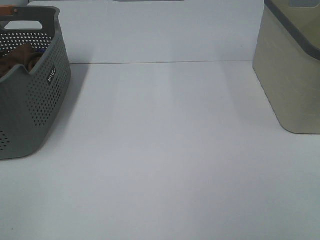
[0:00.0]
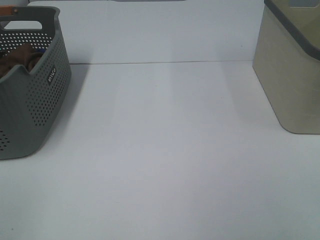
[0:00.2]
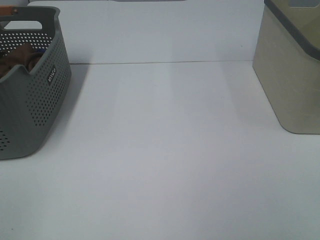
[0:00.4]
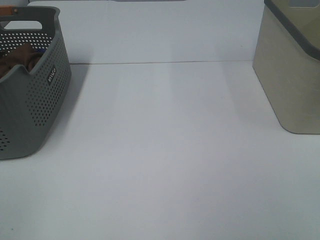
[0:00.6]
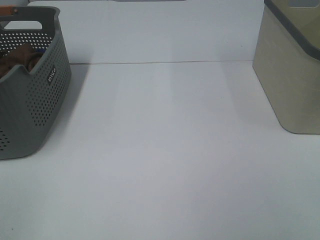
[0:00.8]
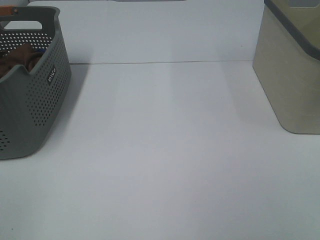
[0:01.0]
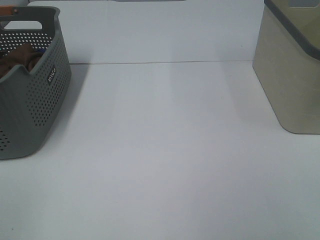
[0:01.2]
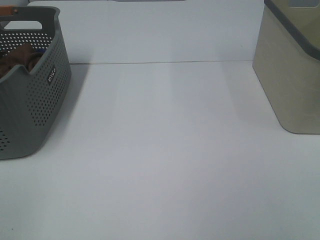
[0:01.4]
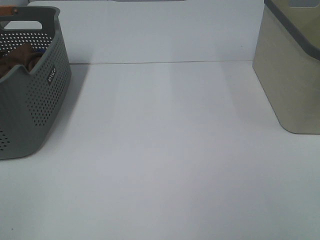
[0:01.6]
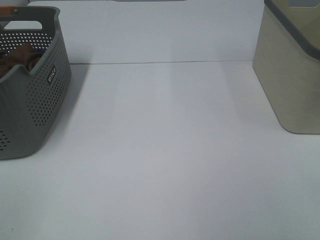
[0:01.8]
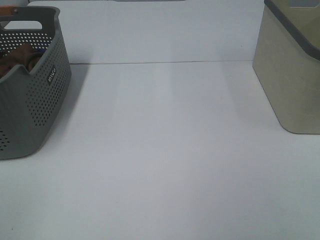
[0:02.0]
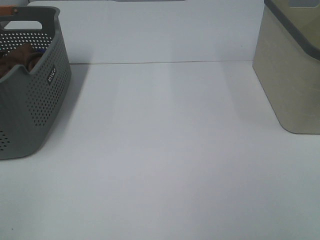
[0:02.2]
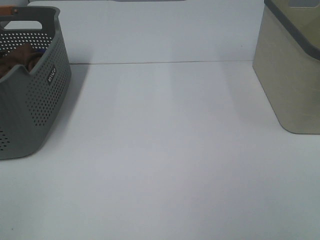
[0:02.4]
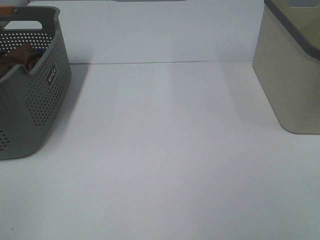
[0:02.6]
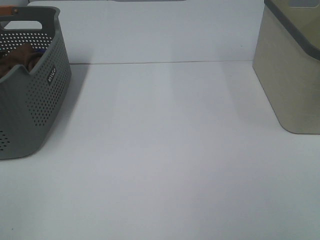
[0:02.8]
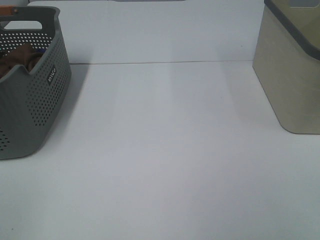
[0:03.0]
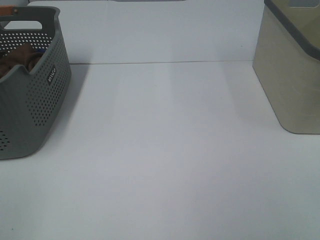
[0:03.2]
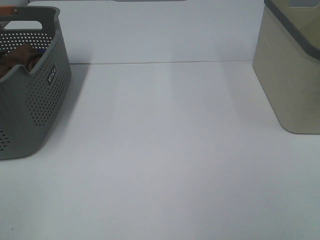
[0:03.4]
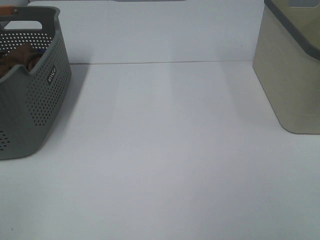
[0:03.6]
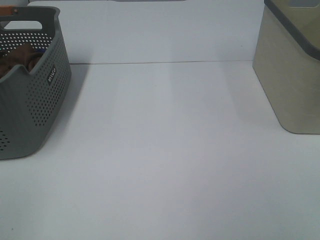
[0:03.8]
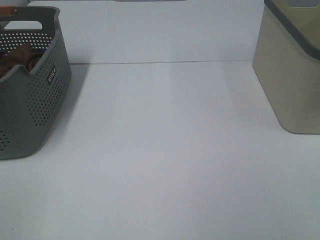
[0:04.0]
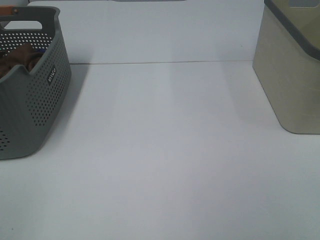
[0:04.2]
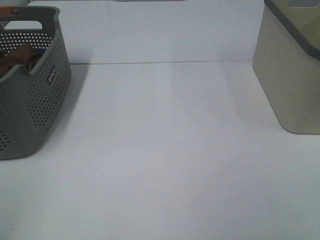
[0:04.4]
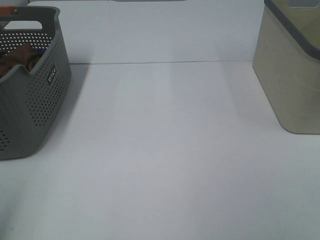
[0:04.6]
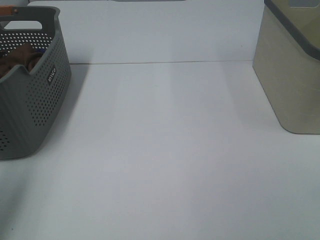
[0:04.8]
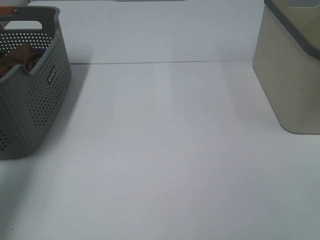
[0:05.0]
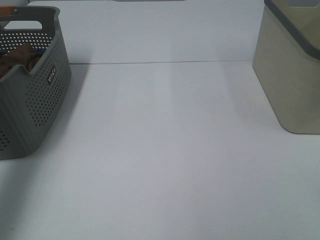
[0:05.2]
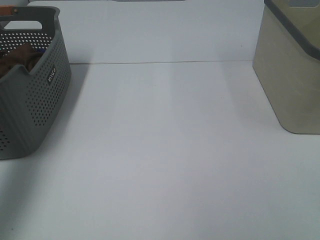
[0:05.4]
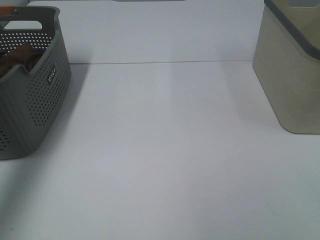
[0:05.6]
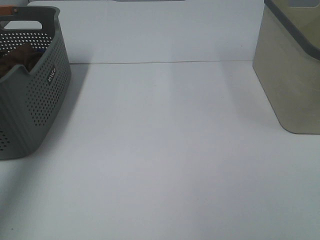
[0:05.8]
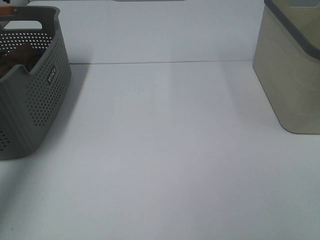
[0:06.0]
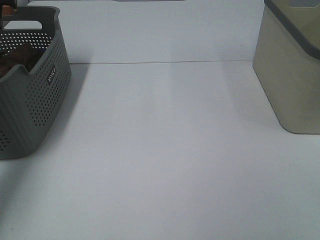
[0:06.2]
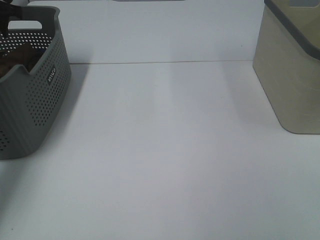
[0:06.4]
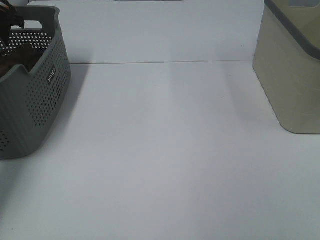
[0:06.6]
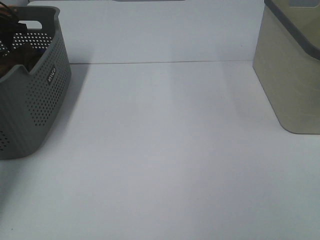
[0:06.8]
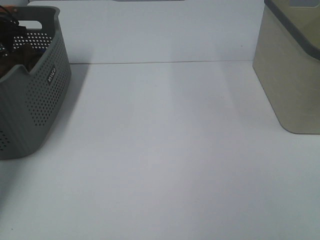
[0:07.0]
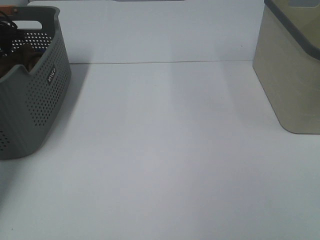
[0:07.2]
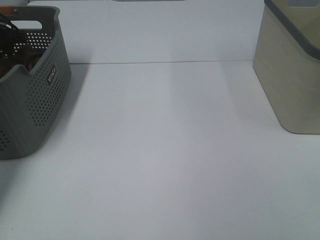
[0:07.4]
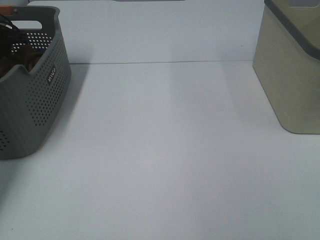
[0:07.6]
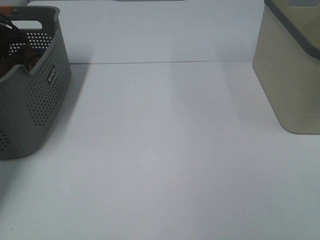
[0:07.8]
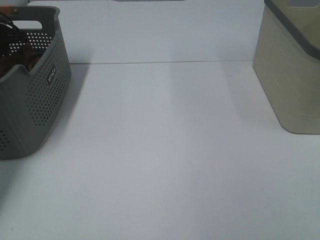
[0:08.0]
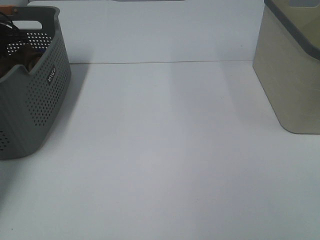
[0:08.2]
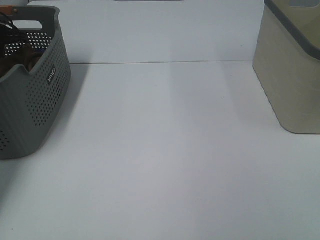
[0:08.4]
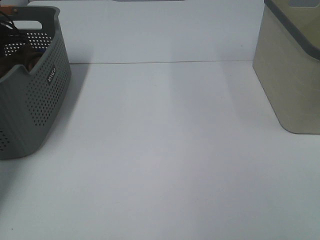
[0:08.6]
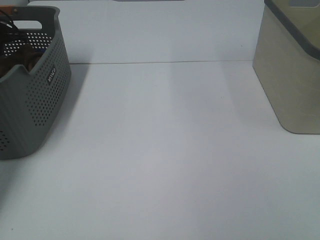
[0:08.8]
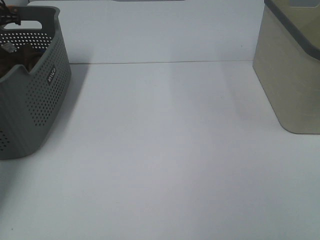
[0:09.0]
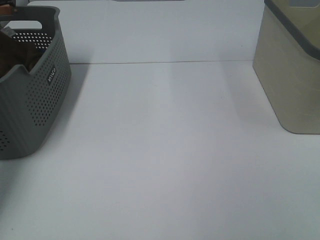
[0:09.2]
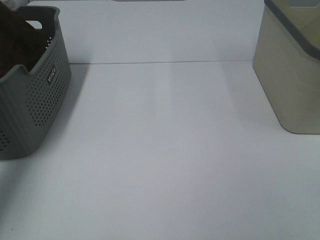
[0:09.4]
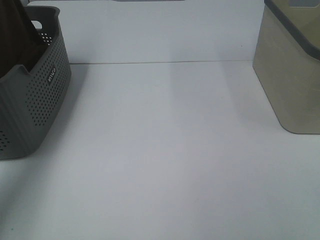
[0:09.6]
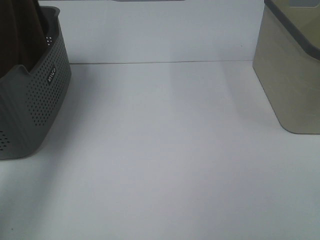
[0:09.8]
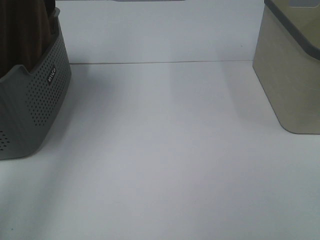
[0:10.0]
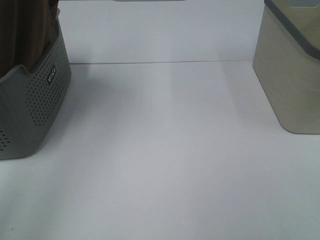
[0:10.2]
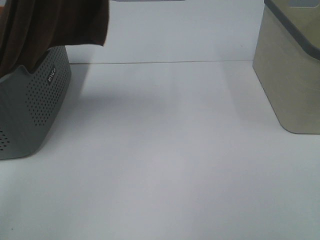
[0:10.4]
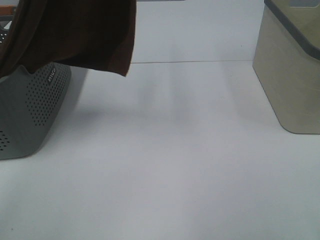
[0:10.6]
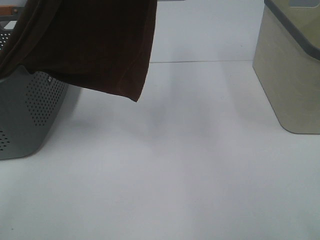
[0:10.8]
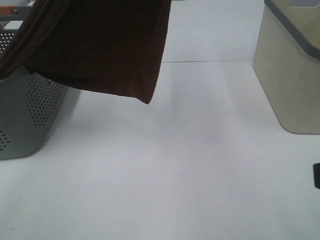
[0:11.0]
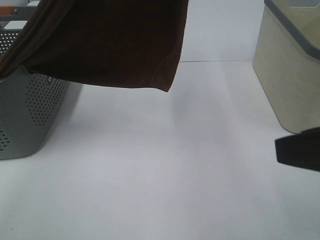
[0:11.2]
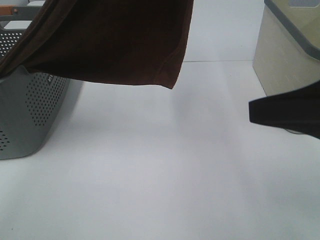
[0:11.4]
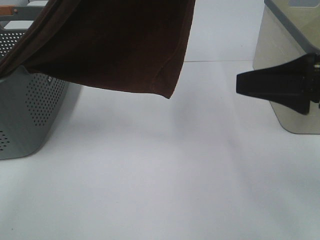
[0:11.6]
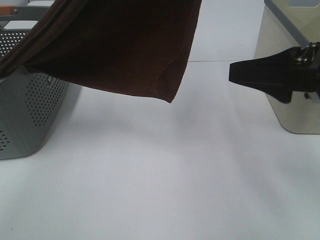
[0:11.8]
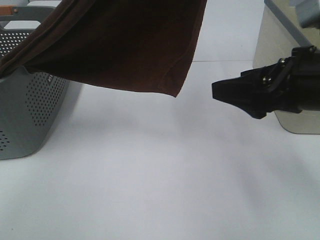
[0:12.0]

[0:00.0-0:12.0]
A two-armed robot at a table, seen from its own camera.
Task of the whole recording: Remove the towel and place it.
0:00.0 to 0:03.0: Both grippers stay put.
0:04.4 to 0:06.0: The left gripper travels forward by some 40 cm.
0:06.0 to 0:07.6: The left gripper is displaced downward and forward by some 15 cm.
0:09.0 to 0:10.4: The left gripper moves upward, to the right and backward, roughly 40 cm.
0:10.4 to 0:12.0: The right gripper shifts roughly 20 cm forward and to the left. The left gripper heads to the right, covering some 10 cm.

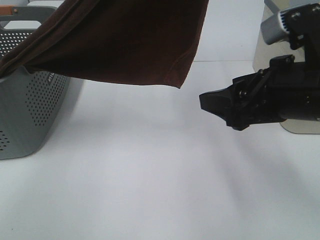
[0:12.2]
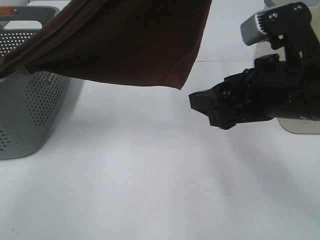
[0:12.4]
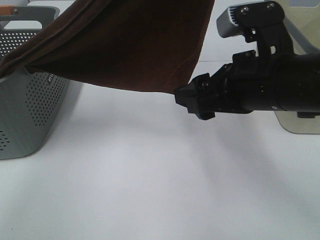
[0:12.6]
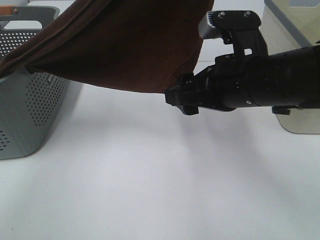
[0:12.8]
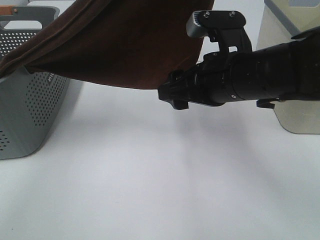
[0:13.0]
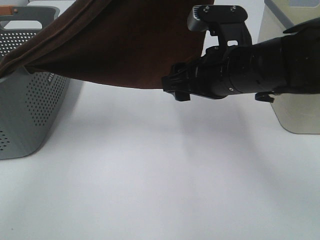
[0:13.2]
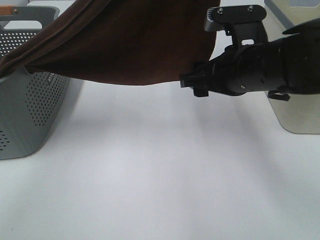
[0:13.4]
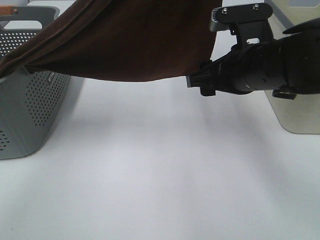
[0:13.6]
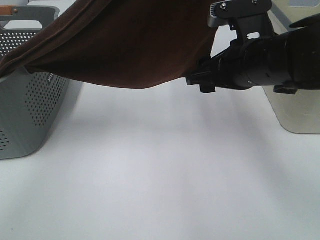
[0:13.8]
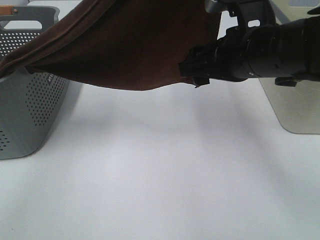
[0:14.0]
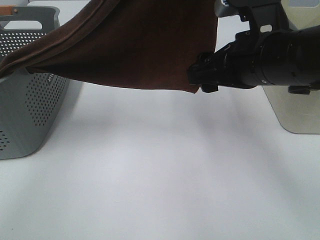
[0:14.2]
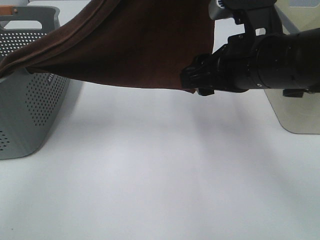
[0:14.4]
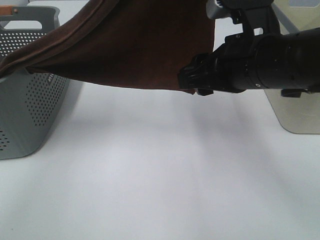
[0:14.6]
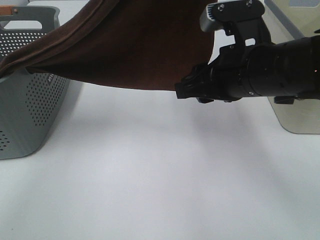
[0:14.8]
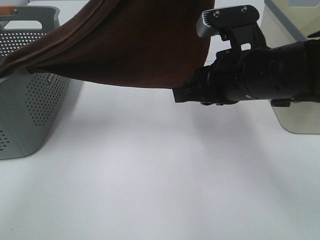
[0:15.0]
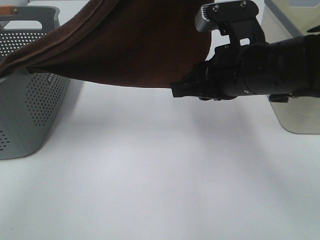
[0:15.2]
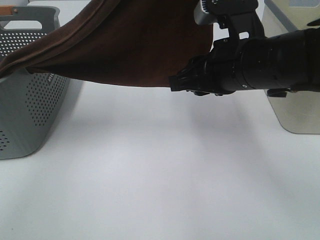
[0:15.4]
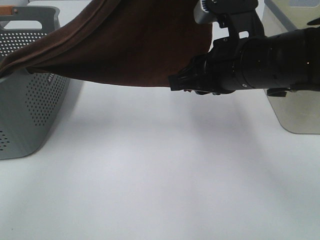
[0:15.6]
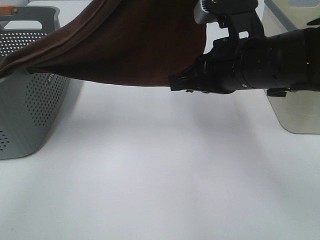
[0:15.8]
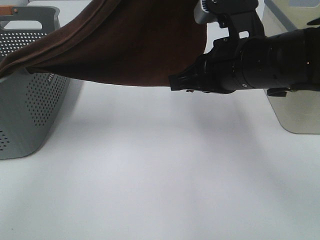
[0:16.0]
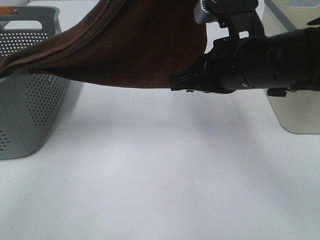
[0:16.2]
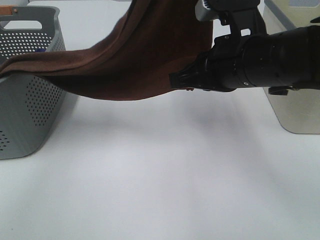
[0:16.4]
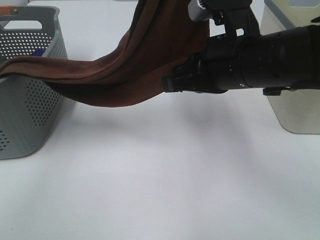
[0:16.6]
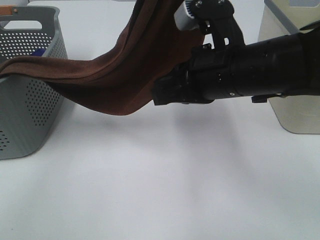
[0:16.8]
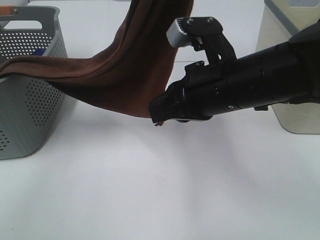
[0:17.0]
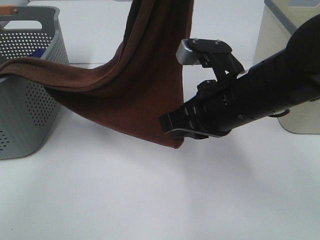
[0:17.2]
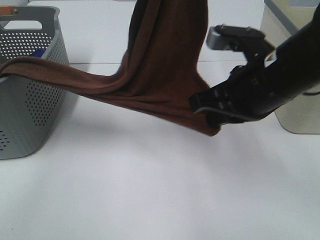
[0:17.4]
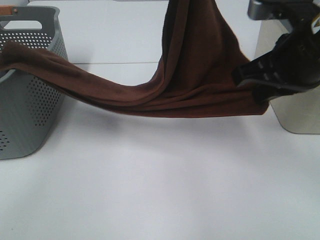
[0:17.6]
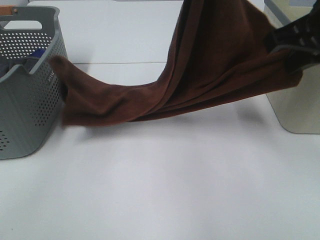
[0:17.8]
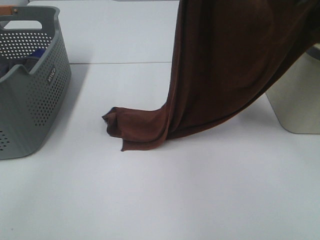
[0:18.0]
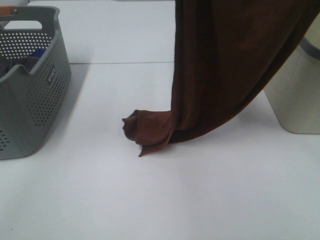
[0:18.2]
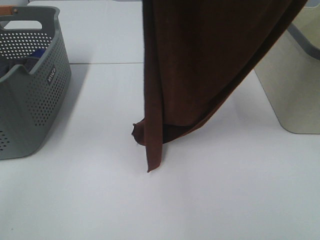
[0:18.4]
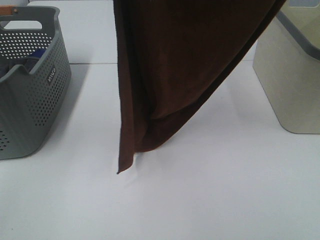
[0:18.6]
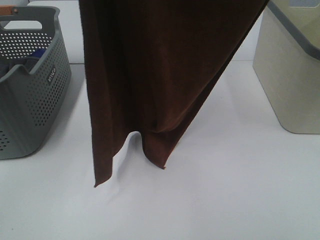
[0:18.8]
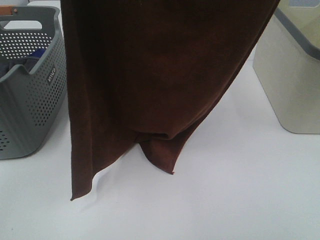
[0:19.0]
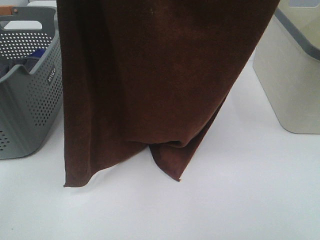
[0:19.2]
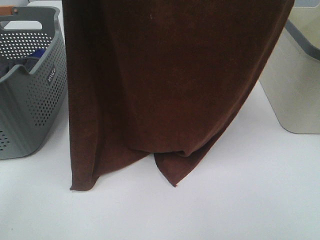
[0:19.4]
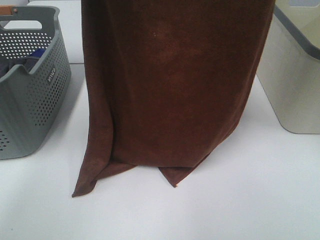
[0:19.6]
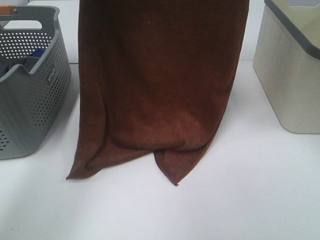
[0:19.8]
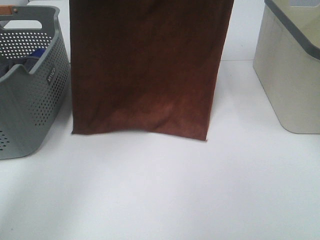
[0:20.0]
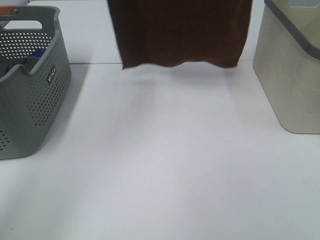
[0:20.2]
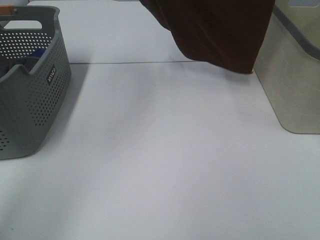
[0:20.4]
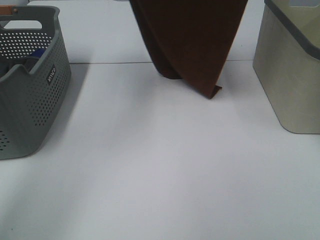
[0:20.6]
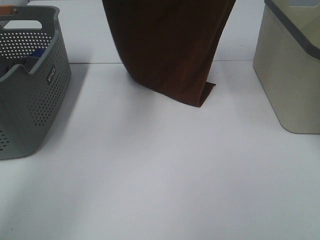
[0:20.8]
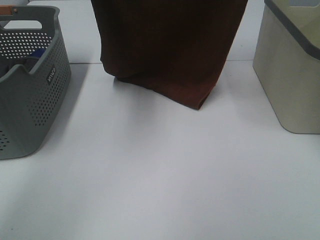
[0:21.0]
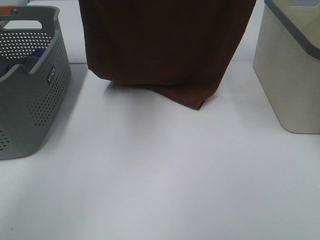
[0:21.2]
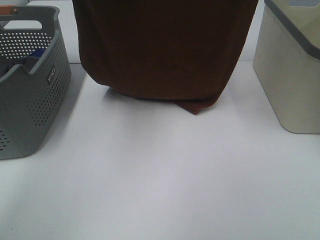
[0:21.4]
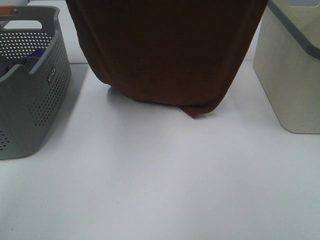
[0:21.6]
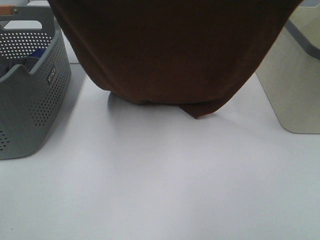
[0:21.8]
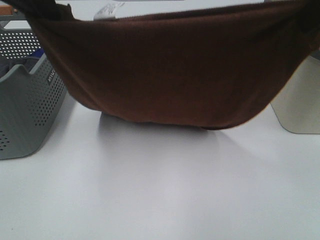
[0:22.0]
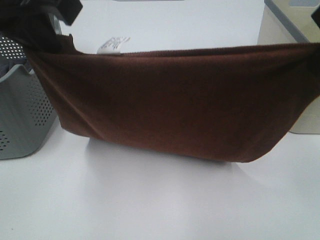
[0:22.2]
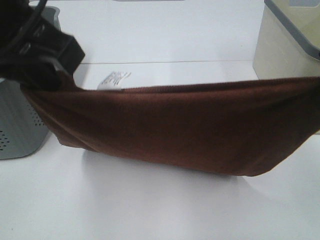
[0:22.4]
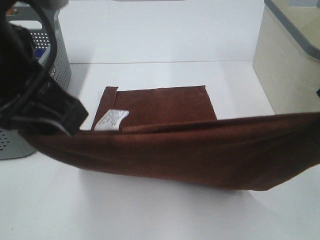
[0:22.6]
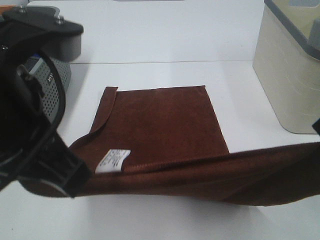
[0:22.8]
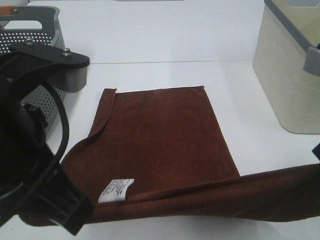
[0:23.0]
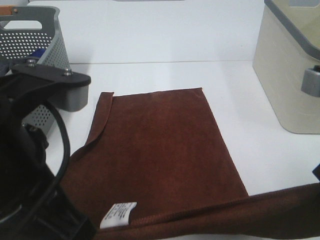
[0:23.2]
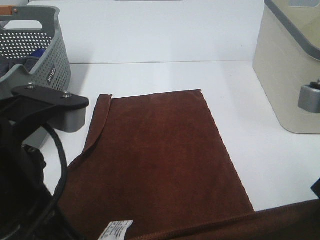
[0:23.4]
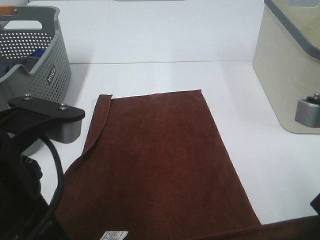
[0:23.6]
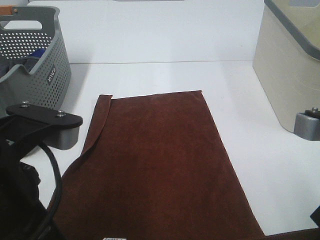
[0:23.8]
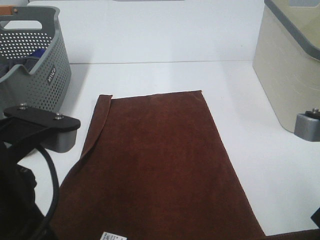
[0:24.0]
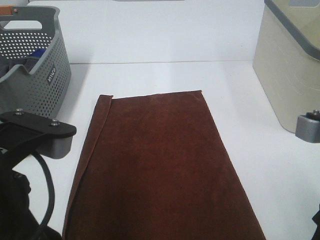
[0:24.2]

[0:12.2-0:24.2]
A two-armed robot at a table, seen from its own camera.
Task of the whole recording: Remove the towel and place it.
Step, 0:12.2 to 0:15.4: Right hand: grab a corner of the brown towel and straighten it.
Step, 0:15.6 to 0:19.6: Left hand: spread the brown towel flat on the table.
Step, 0:15.6 to 0:19.6: Right hand: spread the brown towel flat on the table.
0:12.2 to 0:13.8: The right gripper shifts roughly 10 cm forward.
0:13.8 to 0:15.2: The right gripper closes up.
0:15.2 to 0:16.6: The left gripper changes place by roughly 5 cm. The right gripper closes up.
0:16.6 to 0:18.2: The left gripper moves upward, roughly 5 cm; the right gripper moves upward and to the right, approximately 20 cm.
0:18.2 to 0:19.8: The right gripper shifts about 15 cm forward. The left gripper is displaced forward, to the left and downward by roughly 15 cm.
0:19.8 to 0:21.2: The left gripper changes place by some 5 cm. Meanwhile the right gripper moves about 10 cm upward and comes back.
0:21.2 to 0:22.6: The right gripper heads backward and downward, covering about 25 cm; the left gripper shifts approximately 25 cm backward.
0:22.6 to 0:24.2: The left gripper is displaced downward and backward by about 10 cm, and opens. The right gripper moves downward, approximately 10 cm, and opens.
